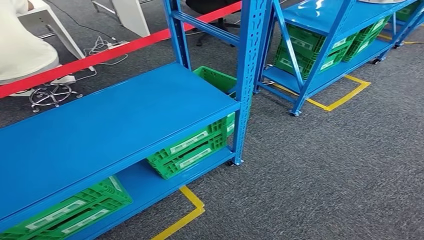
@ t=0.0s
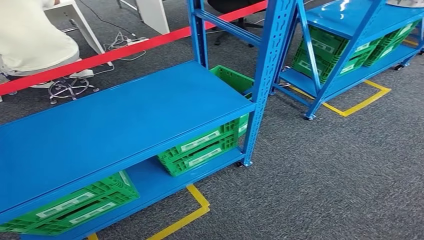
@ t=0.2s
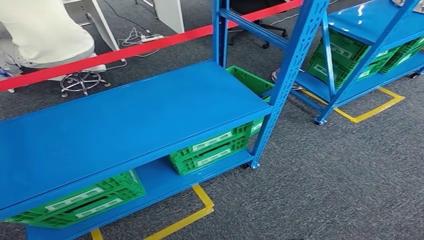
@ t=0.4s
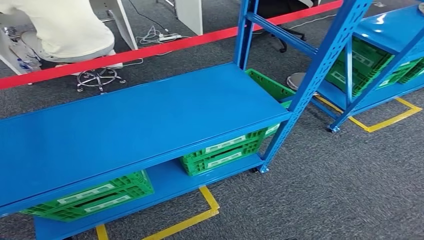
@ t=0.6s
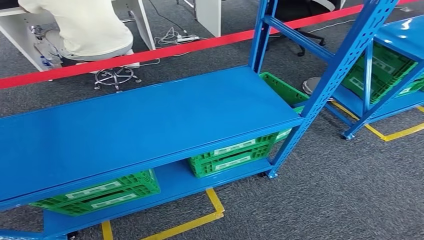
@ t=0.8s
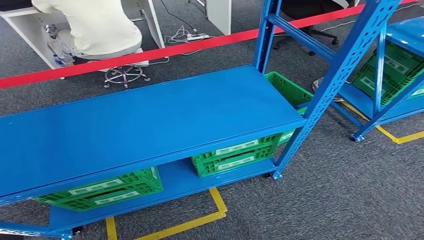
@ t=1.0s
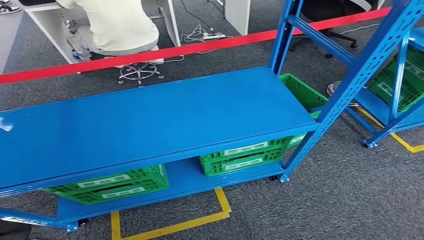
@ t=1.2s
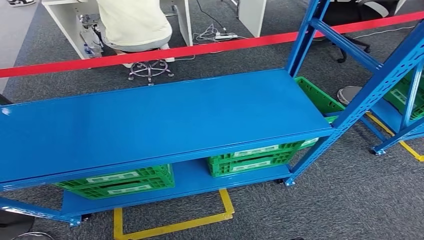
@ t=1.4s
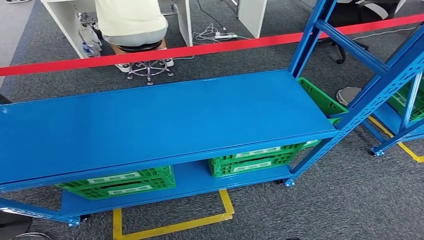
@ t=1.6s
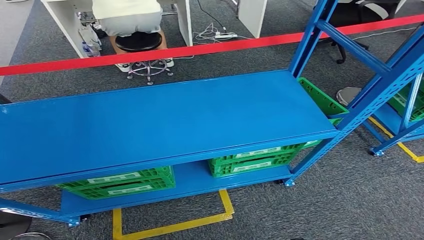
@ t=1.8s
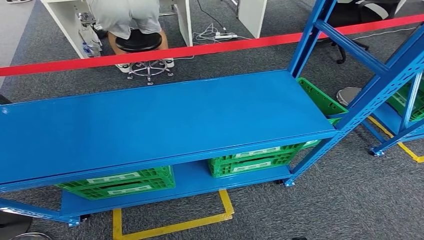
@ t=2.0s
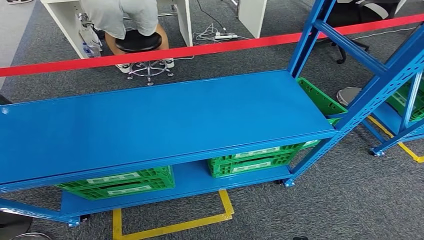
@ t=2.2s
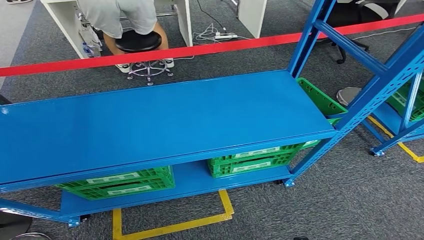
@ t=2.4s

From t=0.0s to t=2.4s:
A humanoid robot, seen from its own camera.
Step, from t=0.0s to t=2.4s: Move to the initial position at the workbench.
